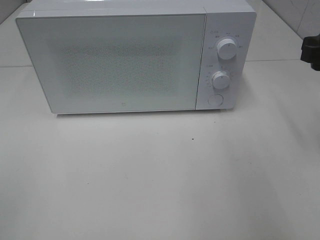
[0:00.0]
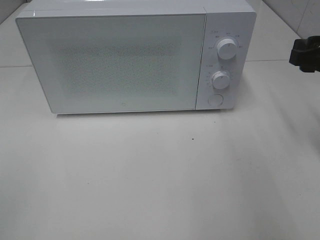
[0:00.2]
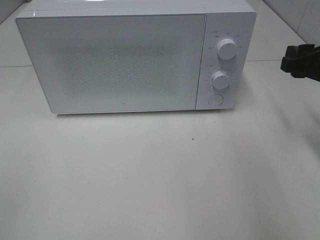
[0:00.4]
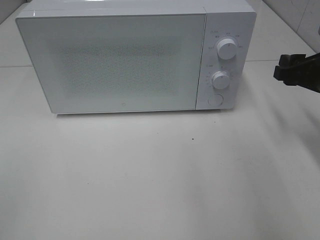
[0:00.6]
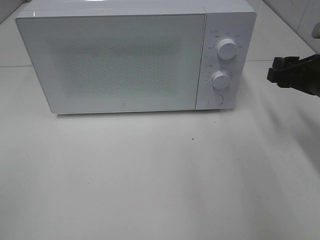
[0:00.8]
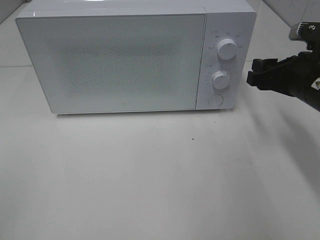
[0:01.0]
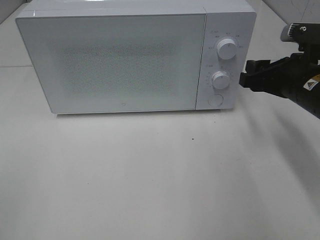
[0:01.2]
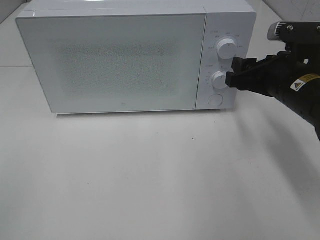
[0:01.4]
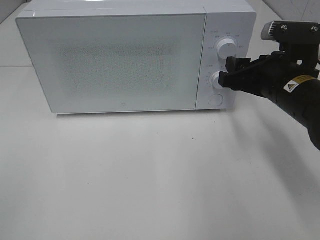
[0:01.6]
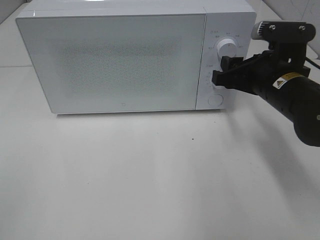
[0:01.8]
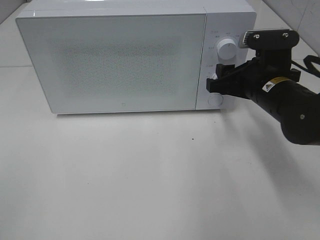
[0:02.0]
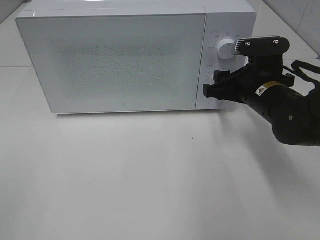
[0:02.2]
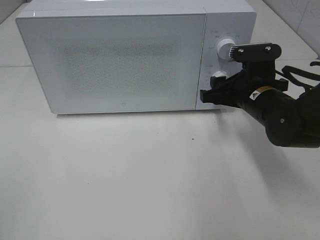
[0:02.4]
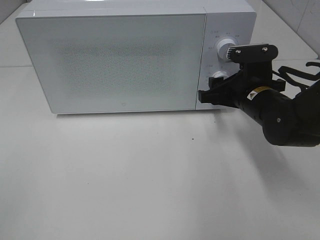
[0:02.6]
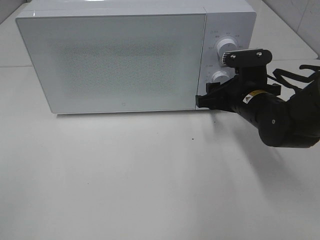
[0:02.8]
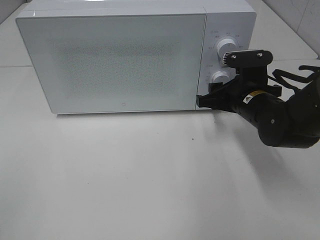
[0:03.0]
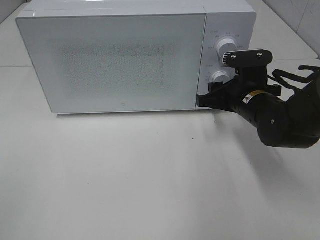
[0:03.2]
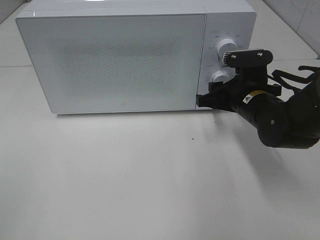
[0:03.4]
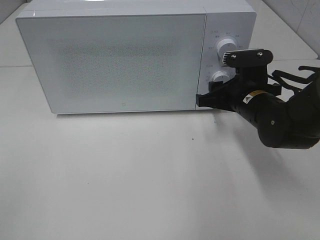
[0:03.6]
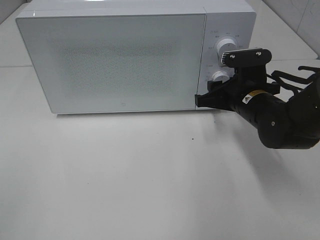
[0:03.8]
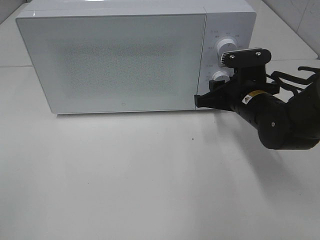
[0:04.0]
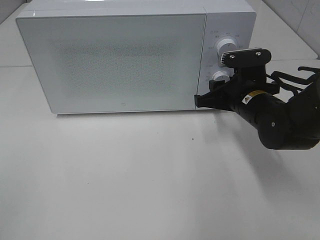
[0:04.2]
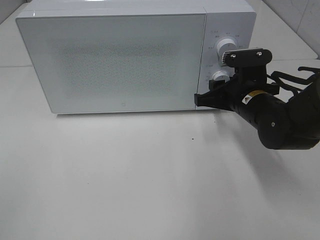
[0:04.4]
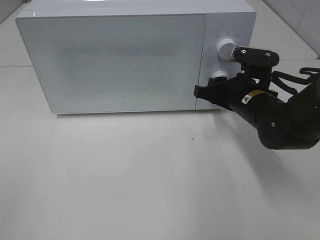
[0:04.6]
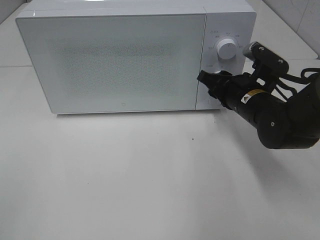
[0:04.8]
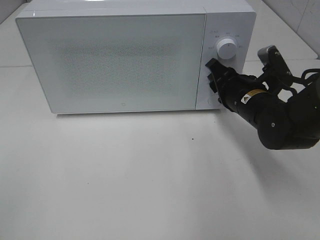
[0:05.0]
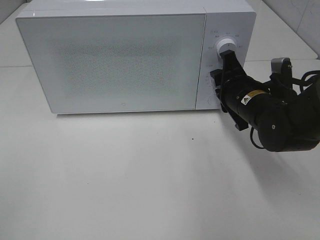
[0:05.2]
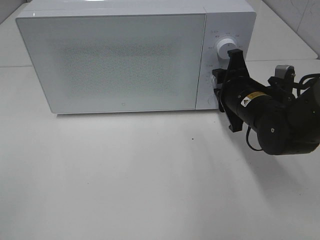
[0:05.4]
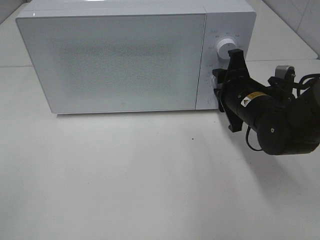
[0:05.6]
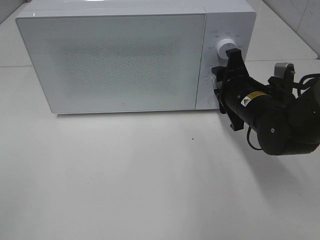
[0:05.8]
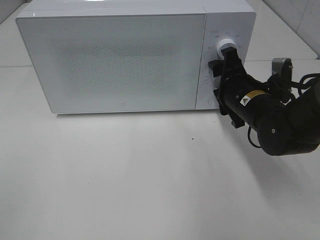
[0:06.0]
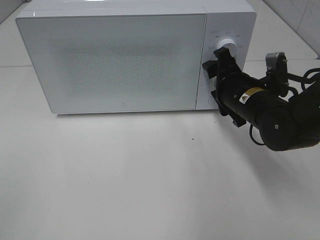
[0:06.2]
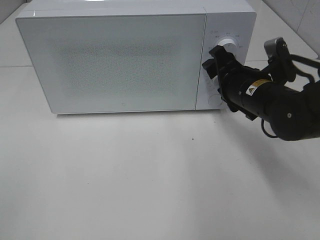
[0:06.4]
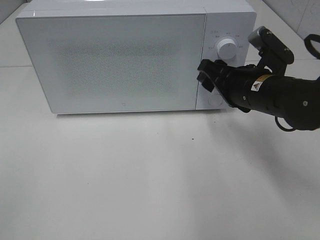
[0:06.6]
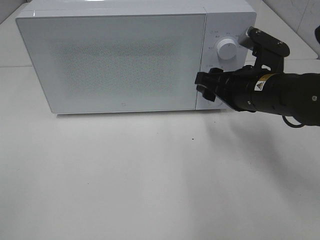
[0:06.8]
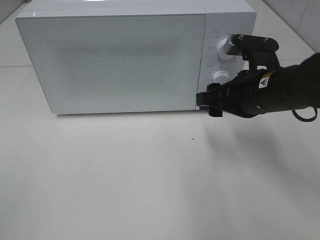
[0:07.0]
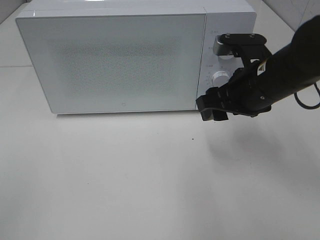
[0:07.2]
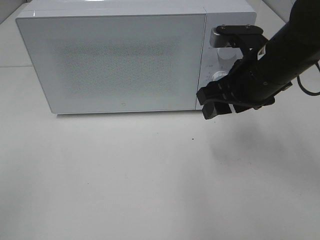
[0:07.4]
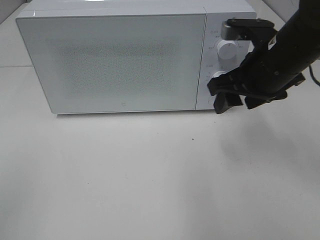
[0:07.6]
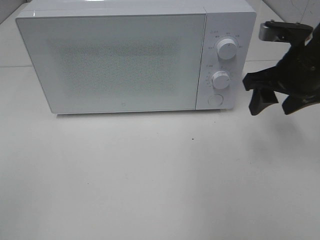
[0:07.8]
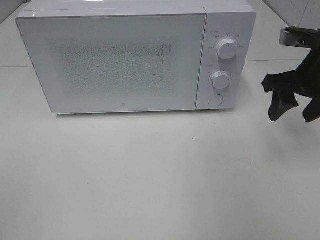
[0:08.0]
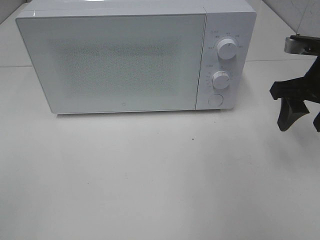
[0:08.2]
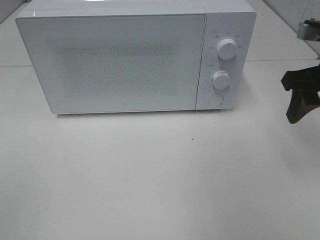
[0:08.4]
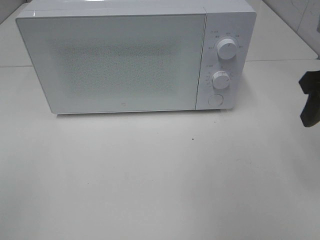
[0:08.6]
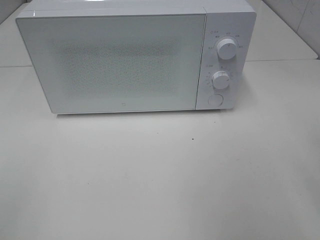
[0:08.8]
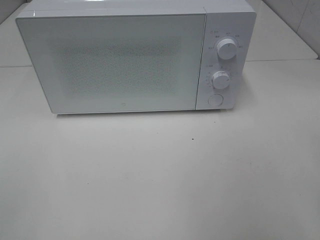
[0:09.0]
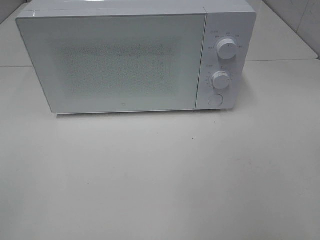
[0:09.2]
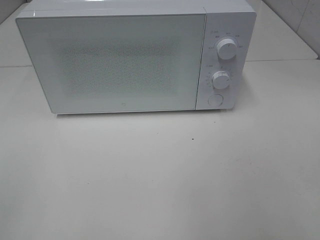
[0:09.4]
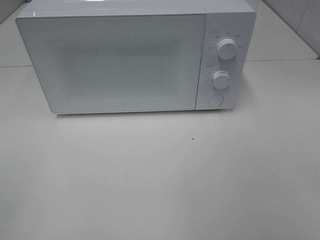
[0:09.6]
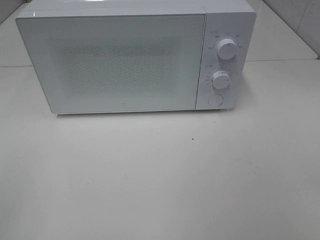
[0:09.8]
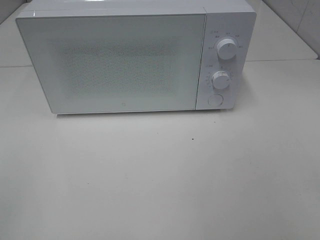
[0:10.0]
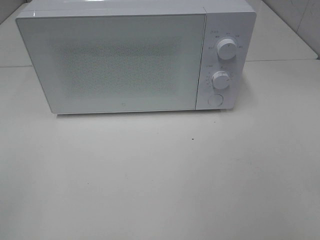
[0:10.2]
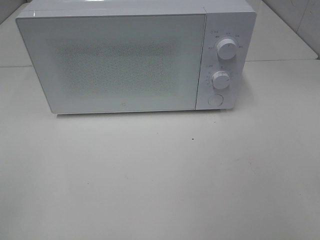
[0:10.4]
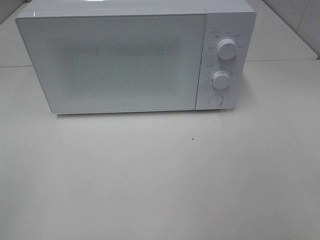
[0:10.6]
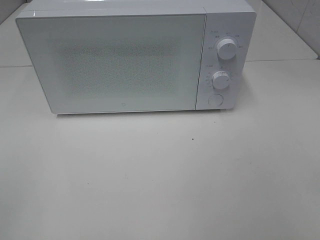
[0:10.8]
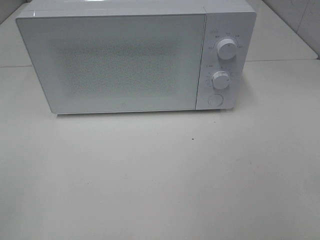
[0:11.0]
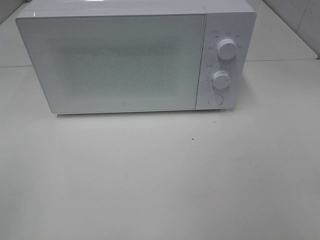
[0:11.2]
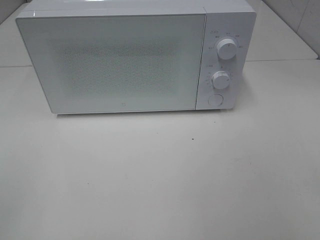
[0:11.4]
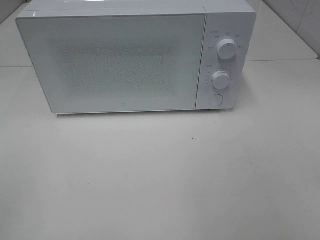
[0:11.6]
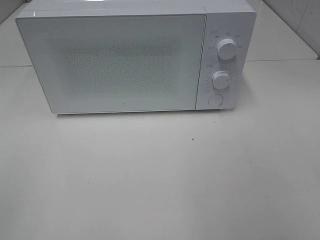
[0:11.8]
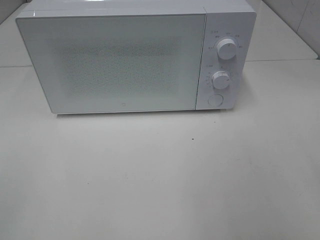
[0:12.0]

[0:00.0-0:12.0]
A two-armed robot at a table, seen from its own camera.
Task of the whole recording: Heat the burger.
Step, 0:00.0 to 0:06.0: Right hand: twist timer button.
0:00.0 to 0:01.6: The right gripper is displaced to the left and downward by roughly 10 cm.
0:01.6 to 0:03.0: The right gripper moves downward, approximately 5 cm.
0:03.0 to 0:04.4: Both grippers stay about where they are.
0:06.0 to 0:07.6: The right gripper moves upward, approximately 10 cm.
0:07.6 to 0:09.0: The right gripper heads backward and to the right, covering about 20 cm.

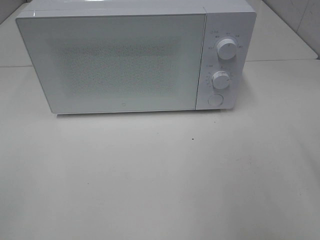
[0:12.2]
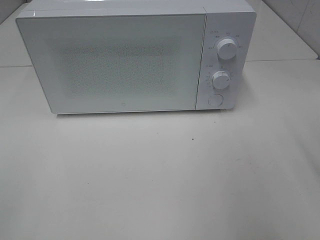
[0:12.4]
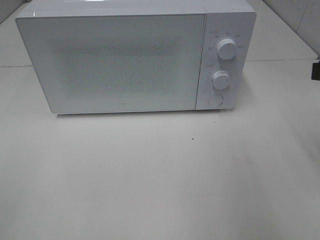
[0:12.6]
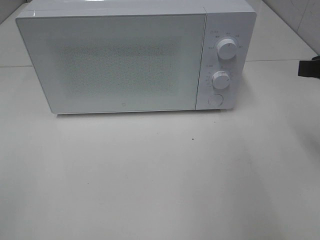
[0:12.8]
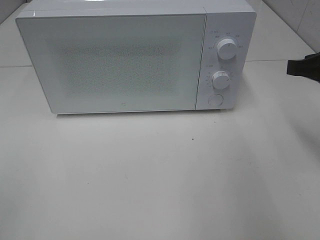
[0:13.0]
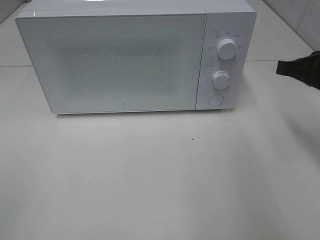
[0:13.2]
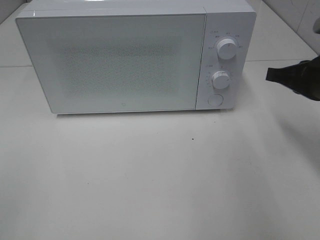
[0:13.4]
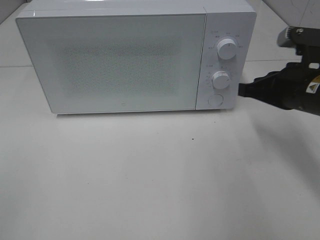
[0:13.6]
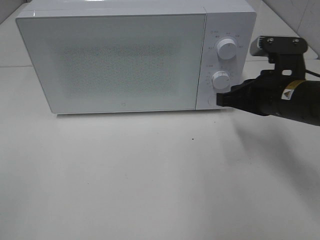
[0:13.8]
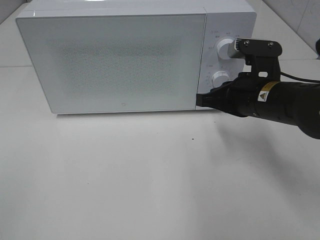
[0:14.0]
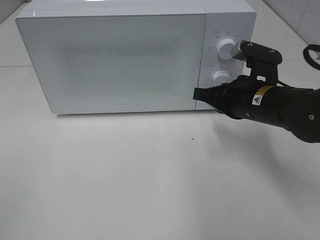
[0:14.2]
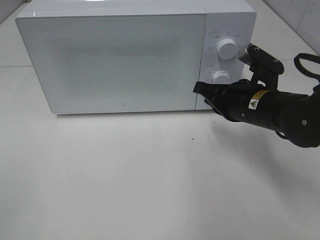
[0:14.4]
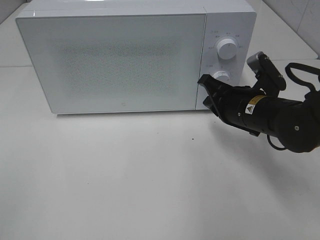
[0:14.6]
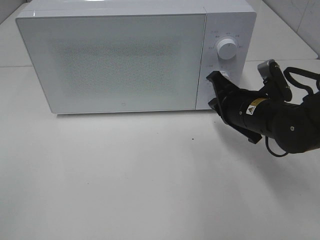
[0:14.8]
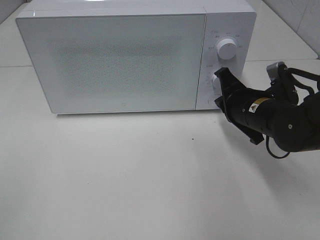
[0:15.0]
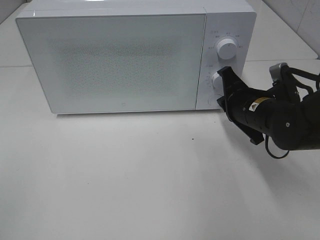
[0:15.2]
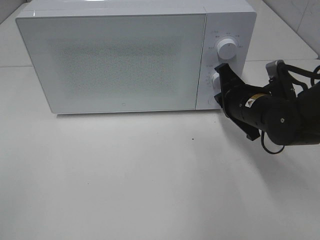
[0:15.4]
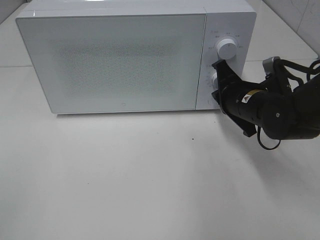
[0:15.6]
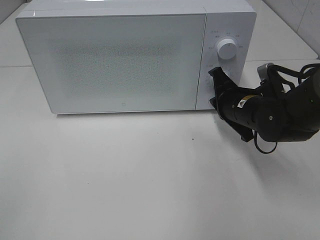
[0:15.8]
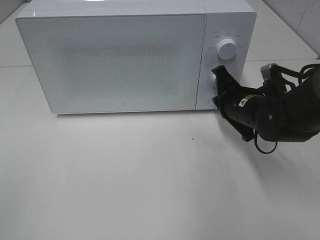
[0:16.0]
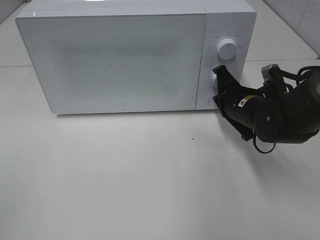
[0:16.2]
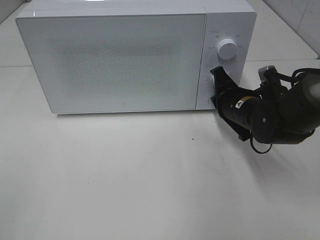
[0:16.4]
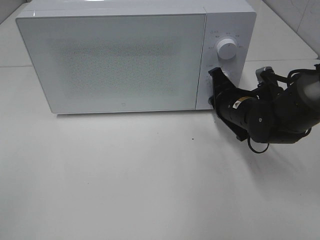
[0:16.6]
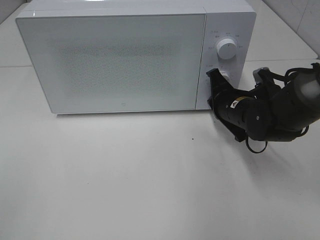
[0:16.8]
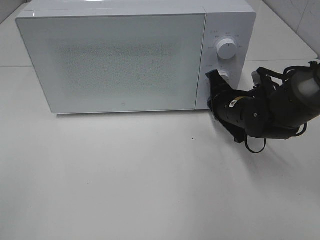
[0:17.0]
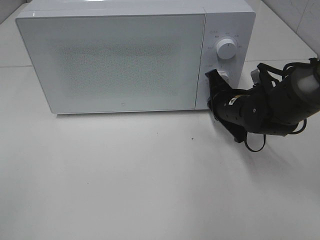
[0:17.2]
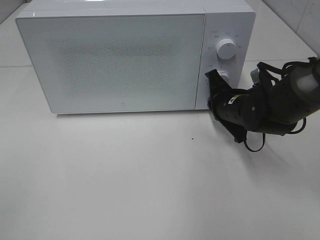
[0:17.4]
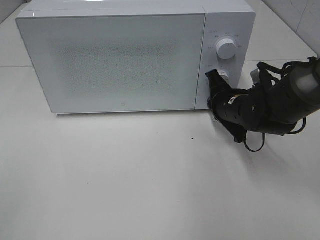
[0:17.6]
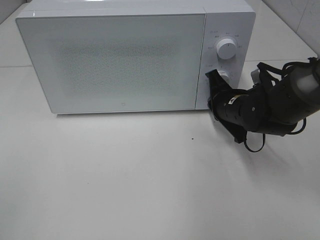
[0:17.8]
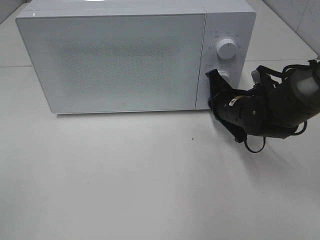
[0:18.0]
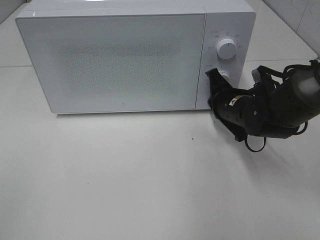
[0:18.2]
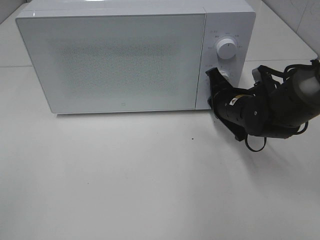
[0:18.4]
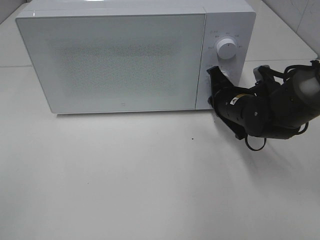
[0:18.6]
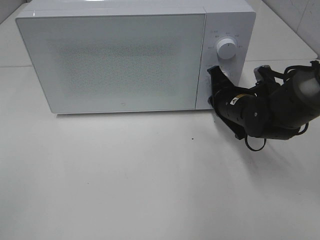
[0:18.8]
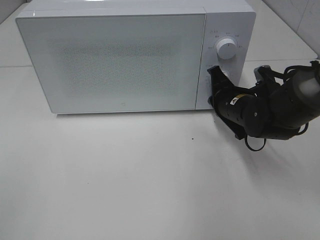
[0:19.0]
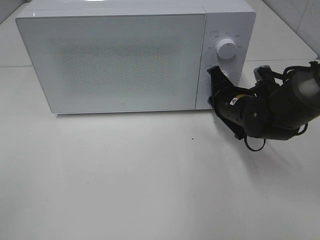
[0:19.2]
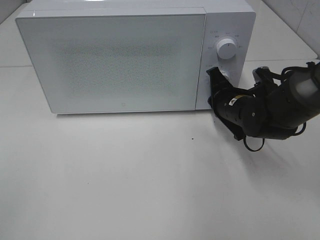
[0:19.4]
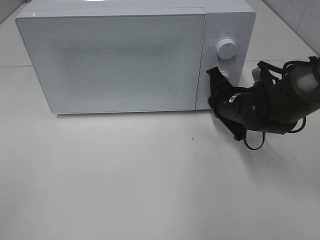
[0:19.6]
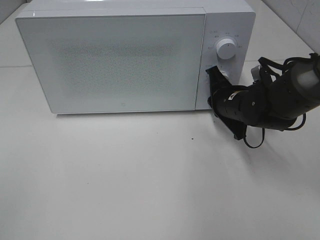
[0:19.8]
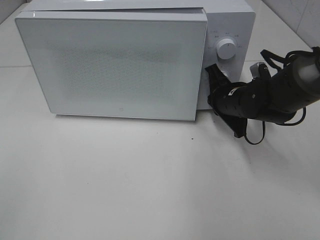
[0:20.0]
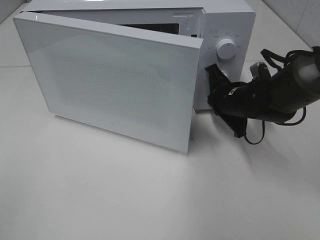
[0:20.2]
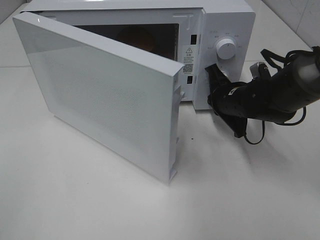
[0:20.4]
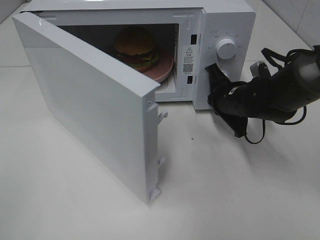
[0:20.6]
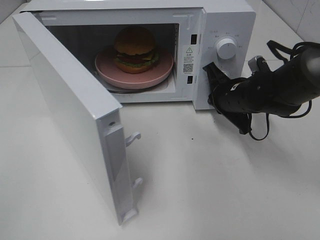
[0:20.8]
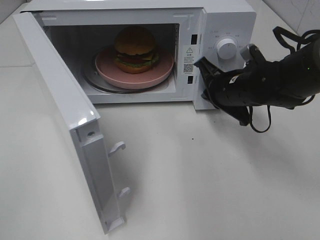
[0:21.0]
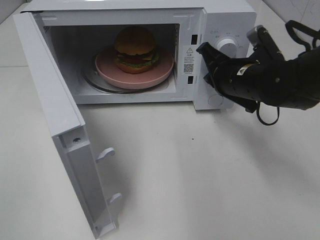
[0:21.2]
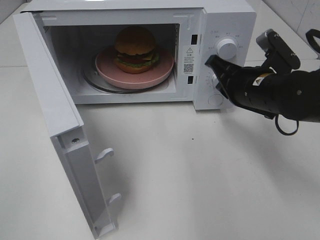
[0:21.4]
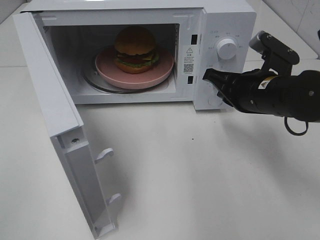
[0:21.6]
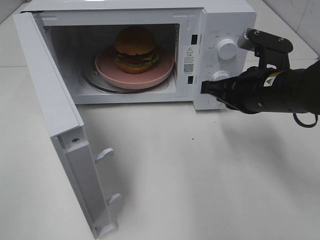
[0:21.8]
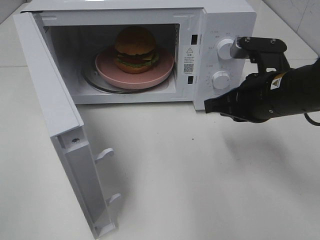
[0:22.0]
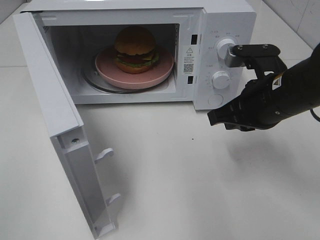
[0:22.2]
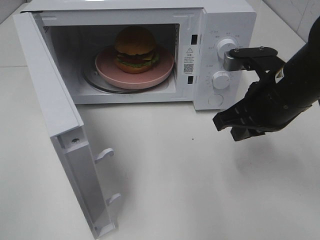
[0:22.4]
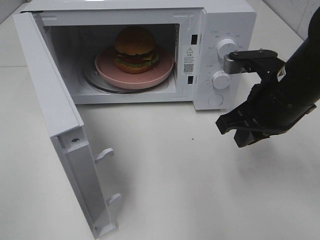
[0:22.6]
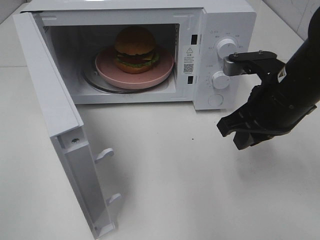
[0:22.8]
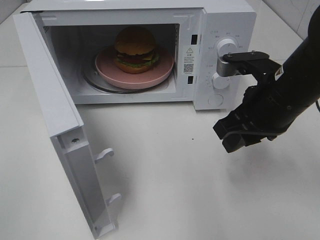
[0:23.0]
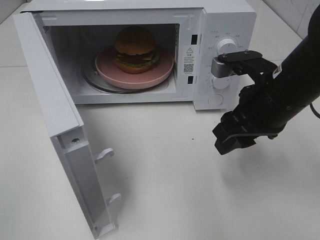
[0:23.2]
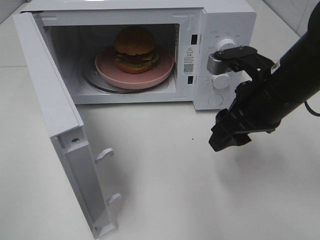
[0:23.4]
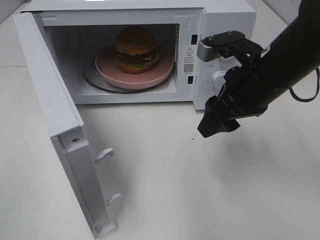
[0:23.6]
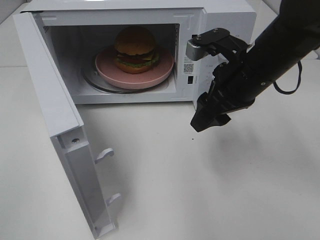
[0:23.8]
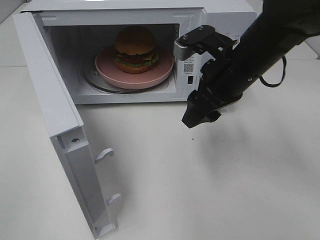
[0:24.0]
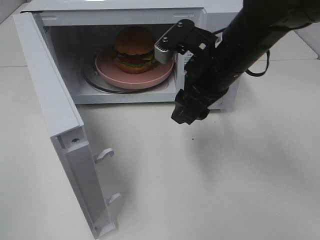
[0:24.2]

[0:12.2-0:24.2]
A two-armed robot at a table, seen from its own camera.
Task of the whole recording: Heat the burger.
Step, 0:12.2 to 0:20.8: Right hand: press the switch.
0:12.2 to 0:13.8: The right gripper travels forward, downward and to the left by some 20 cm, and closes.
0:13.8 to 0:15.2: The right gripper heads downward, covering roughly 5 cm.
0:15.2 to 0:18.2: The grippers stay close to where they were, moving slightly.
0:18.2 to 0:19.8: The two grippers keep their place.
0:19.8 to 0:21.2: The right gripper heads upward, covering approximately 5 cm.
0:21.2 to 0:22.6: The right gripper shifts about 10 cm backward.
0:22.6 to 0:24.2: The right gripper shifts roughly 10 cm to the left, and opens.
